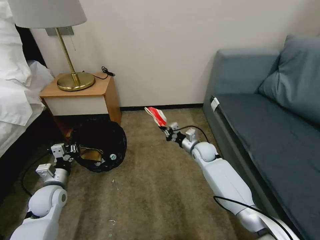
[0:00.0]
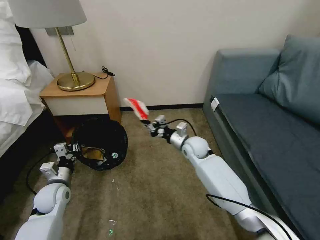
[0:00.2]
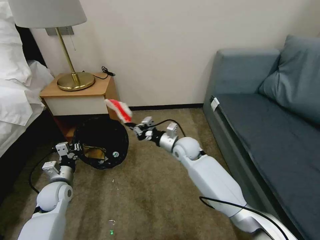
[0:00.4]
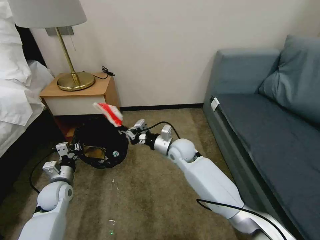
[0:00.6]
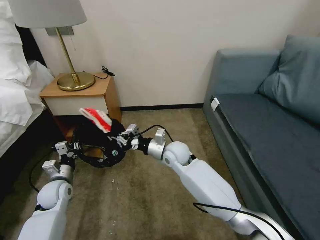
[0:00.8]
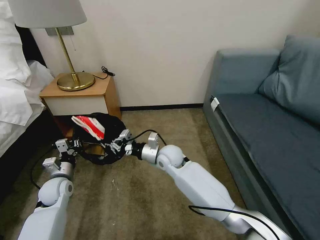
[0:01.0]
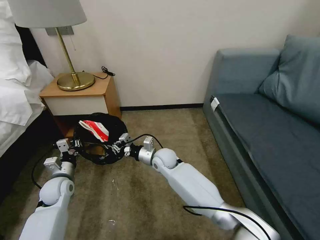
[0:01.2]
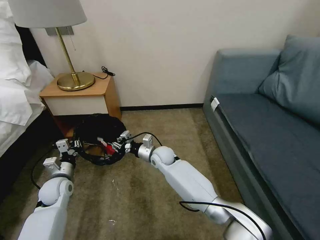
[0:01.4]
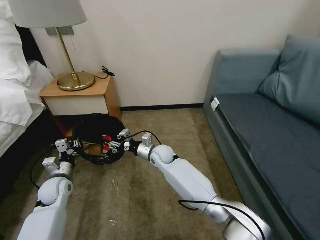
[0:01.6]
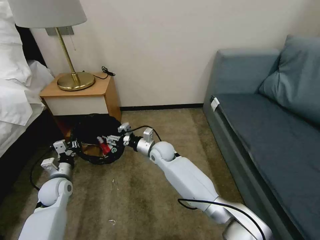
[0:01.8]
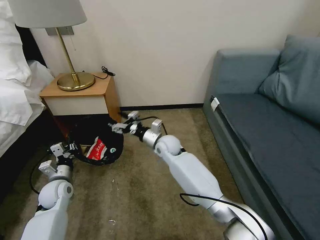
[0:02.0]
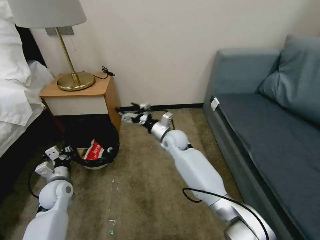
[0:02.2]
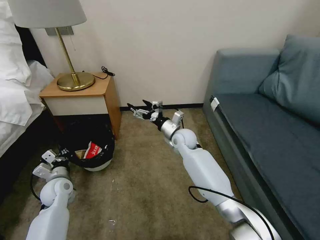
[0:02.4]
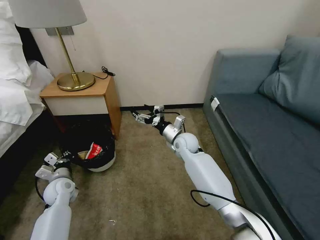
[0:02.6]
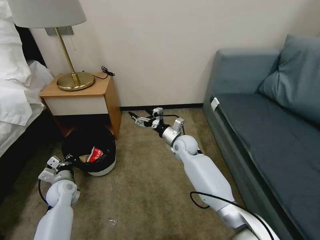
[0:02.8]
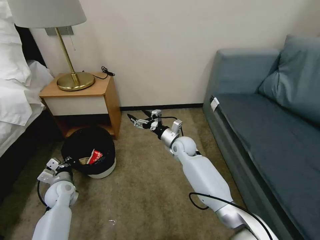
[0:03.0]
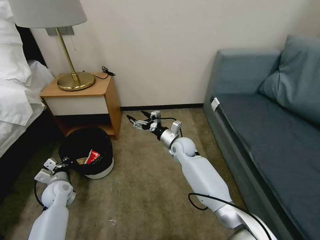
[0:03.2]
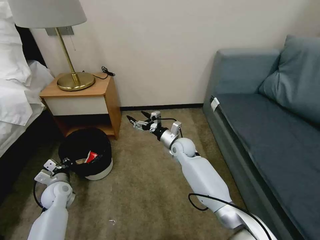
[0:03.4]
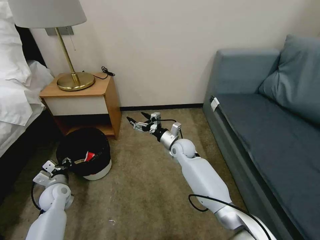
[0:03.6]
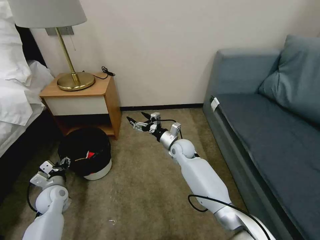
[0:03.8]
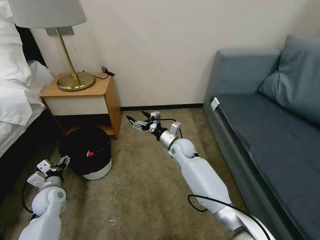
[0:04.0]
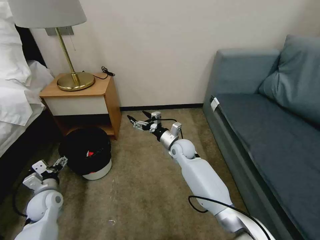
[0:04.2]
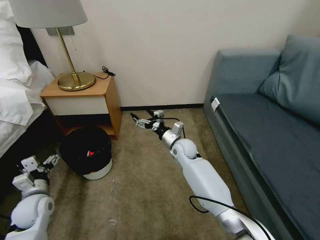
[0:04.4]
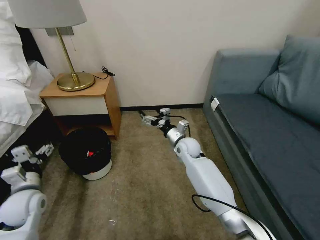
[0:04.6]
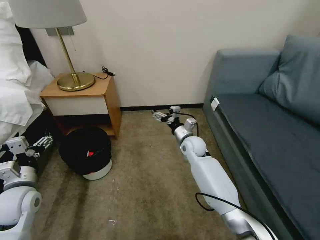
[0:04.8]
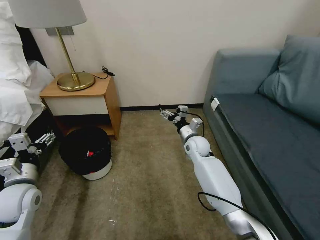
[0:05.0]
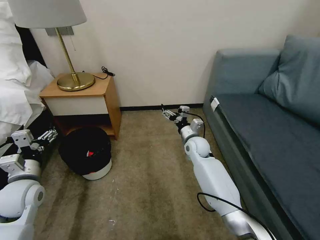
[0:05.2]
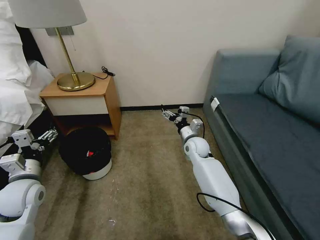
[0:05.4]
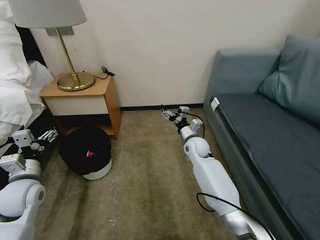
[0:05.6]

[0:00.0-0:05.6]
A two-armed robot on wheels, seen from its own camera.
Task of the whole recording: Pick up the trash bin, then pick up the garbage on the floor and place it into the trash bin.
0.0 to 1.4 s: The right gripper shifts roughly 20 cm to the left.
1.4 to 2.8 s: The right gripper goes about 10 cm to the right, and opens.
2.8 to 4.2 s: The left gripper shifts by some 5 cm, and opens its fingers.
4.2 to 5.6 s: The right gripper shifts roughly 5 cm to the right. Meanwhile the left gripper is displaced upward by approximately 15 cm.

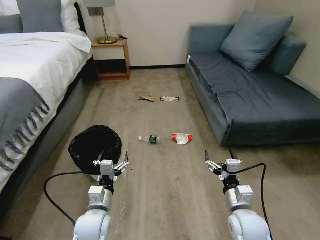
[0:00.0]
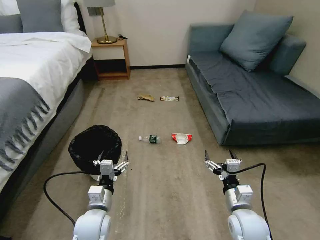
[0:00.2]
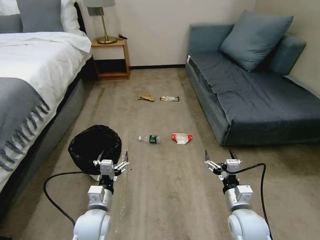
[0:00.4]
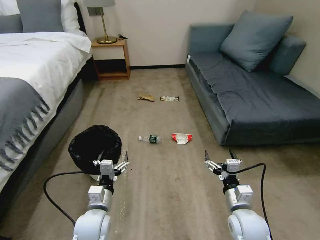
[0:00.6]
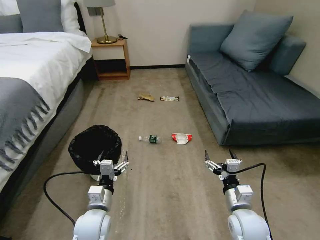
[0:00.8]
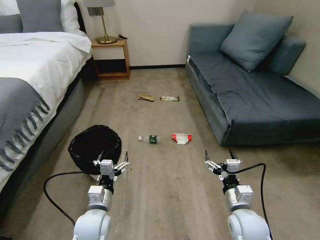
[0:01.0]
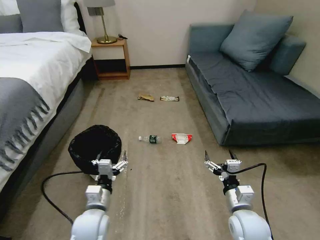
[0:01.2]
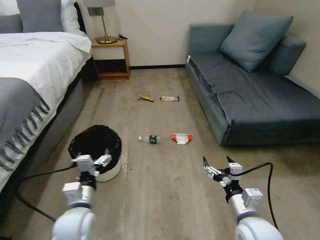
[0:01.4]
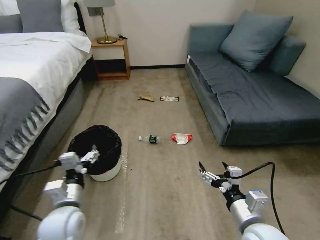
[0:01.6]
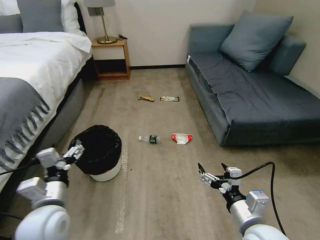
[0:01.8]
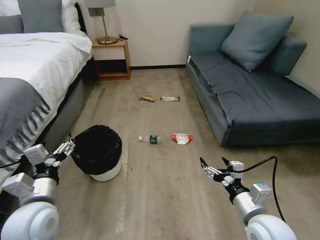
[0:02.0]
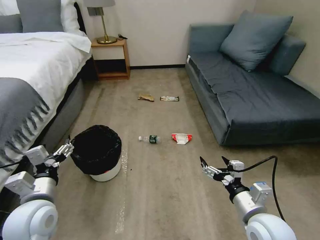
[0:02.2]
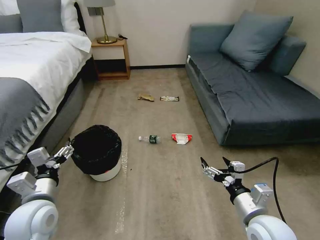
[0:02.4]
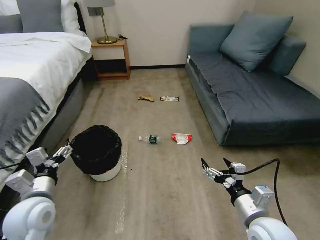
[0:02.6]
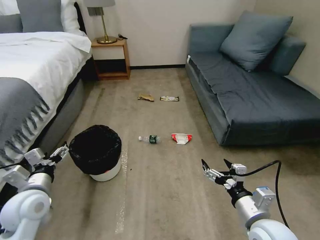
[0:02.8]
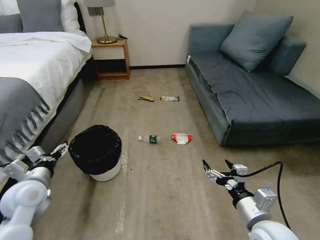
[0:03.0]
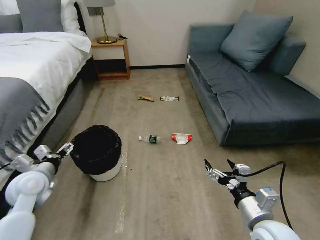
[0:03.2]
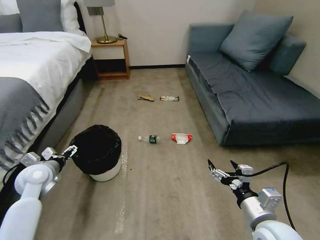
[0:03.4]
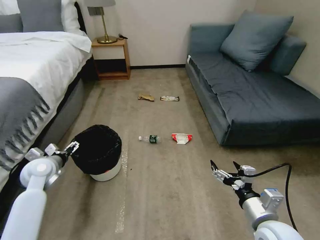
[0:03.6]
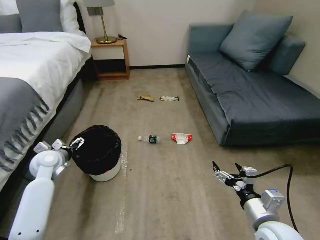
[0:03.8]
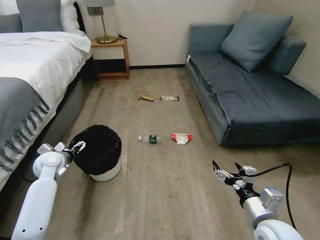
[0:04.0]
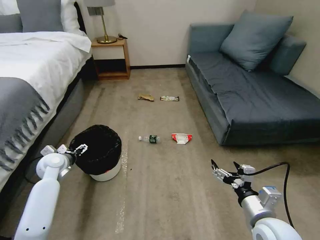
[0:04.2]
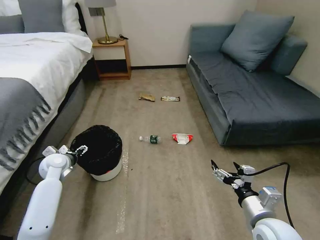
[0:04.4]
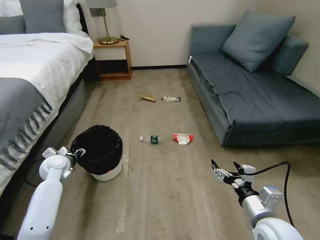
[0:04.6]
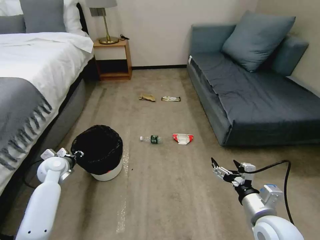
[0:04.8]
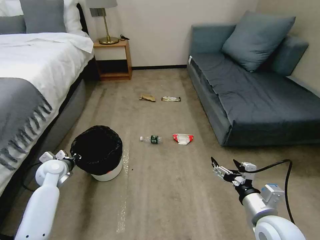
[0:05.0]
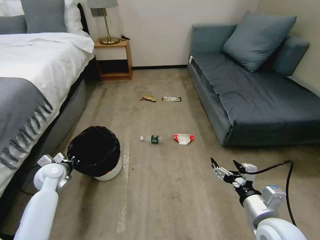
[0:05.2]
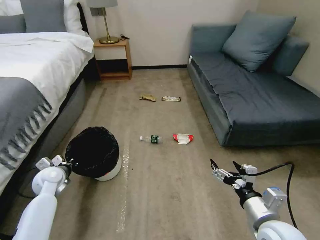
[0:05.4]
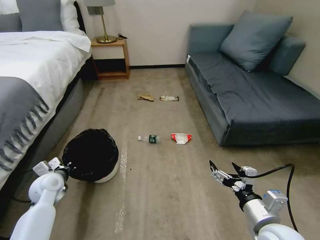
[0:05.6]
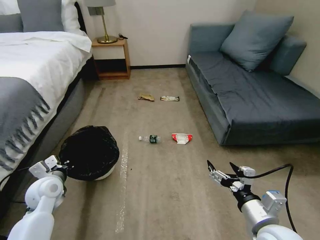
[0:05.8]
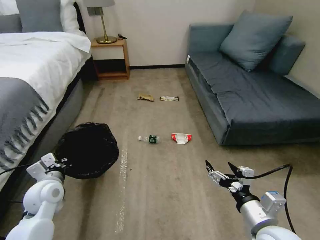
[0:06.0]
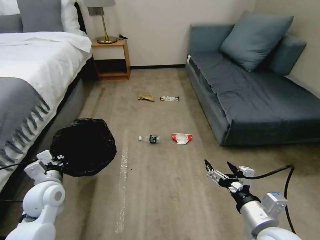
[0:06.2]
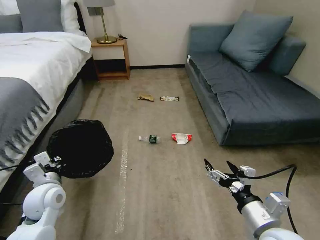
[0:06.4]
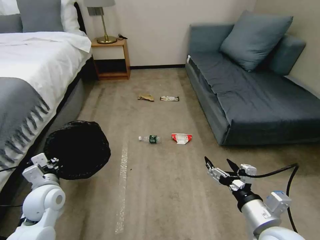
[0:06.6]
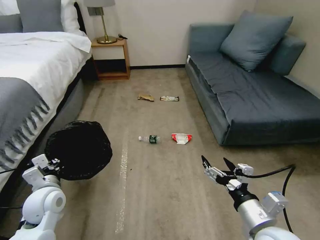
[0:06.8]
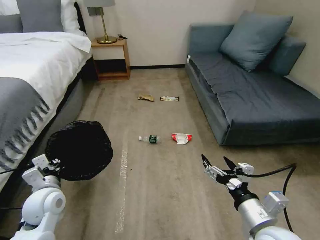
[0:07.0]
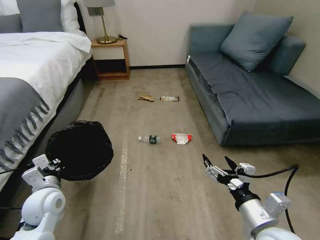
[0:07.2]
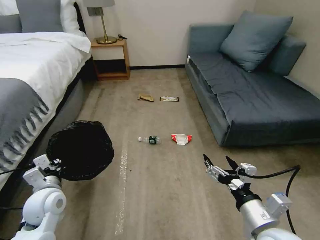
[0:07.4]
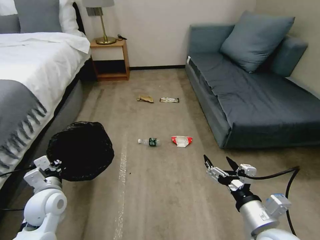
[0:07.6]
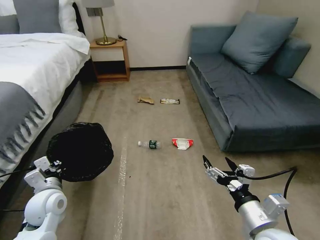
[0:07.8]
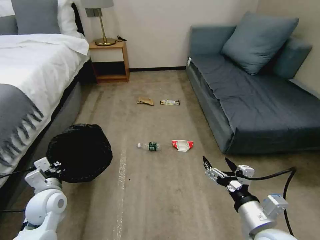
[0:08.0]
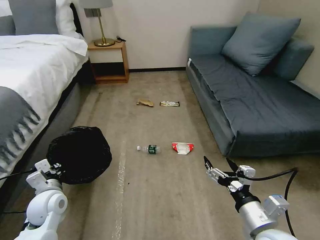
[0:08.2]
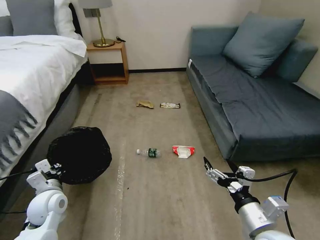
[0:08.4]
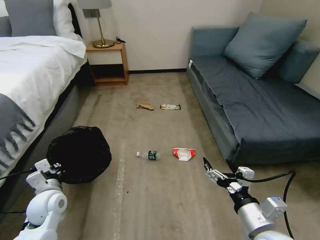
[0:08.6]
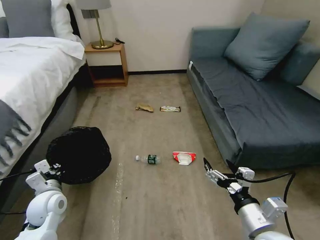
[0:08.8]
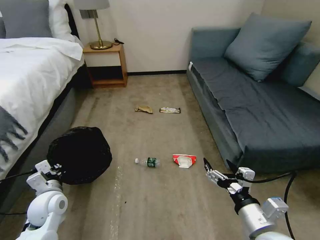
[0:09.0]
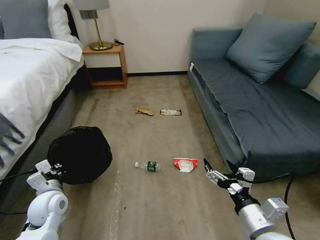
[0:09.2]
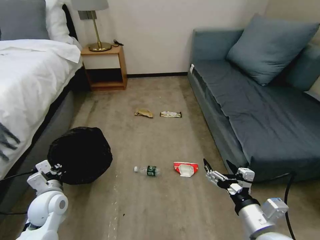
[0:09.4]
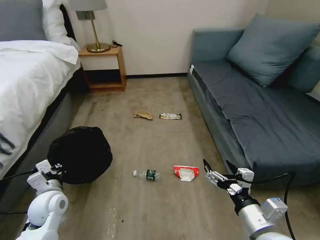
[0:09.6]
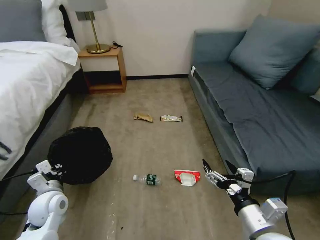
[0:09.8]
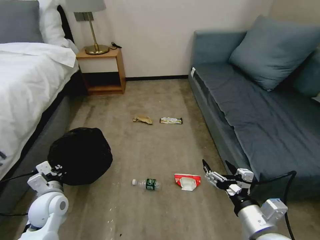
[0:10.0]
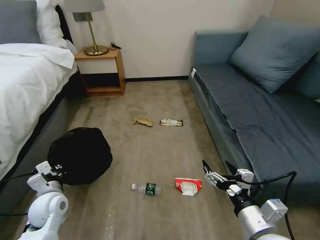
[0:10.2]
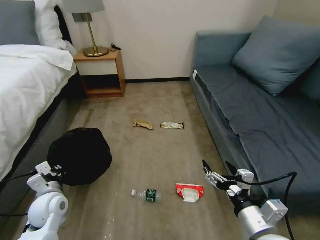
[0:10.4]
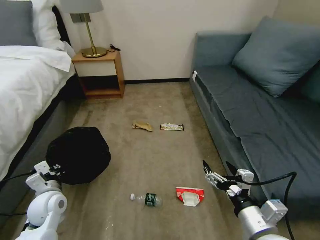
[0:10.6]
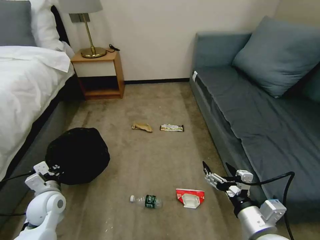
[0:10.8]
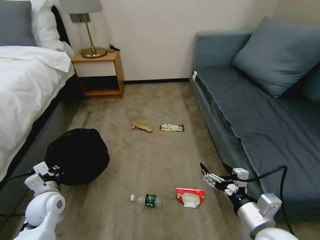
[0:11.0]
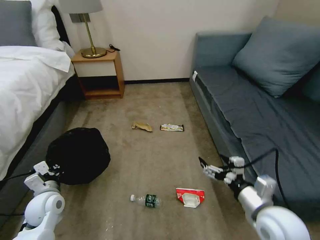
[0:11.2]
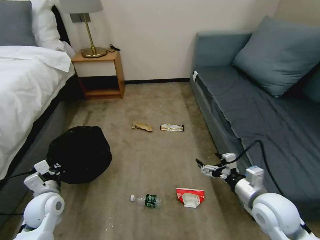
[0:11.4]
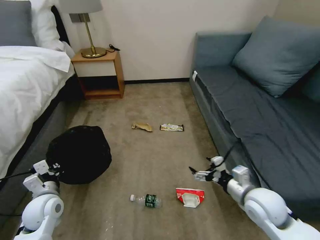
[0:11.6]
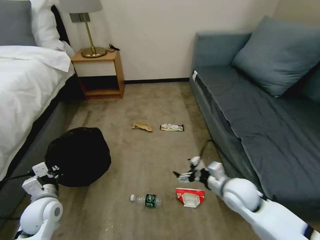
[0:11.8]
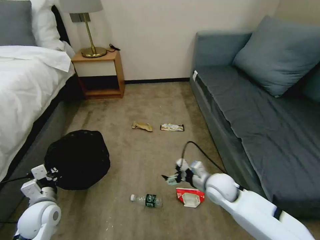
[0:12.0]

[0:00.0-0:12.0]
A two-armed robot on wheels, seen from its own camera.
Task of the whole recording: Pick up the trash bin, then pick up the garbage on the floor and place it into the trash bin.
1.6 to 3.0 s: The left gripper travels to the left by about 10 cm.
3.0 to 4.4 s: The left gripper travels forward and downward by some 15 cm.
4.4 to 6.0 s: The left gripper goes roughly 10 cm backward, and closes its fingers.
6.0 to 7.6 s: The grippers stay close to where they were, moving slightly.
10.4 to 12.0 s: The right gripper heads forward and downward, covering some 20 cm.

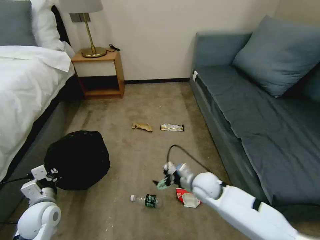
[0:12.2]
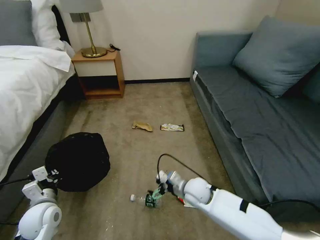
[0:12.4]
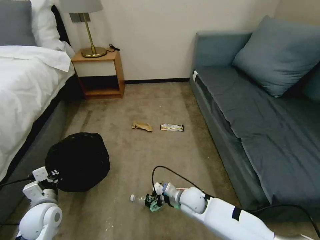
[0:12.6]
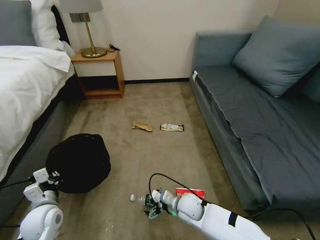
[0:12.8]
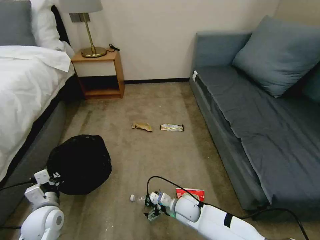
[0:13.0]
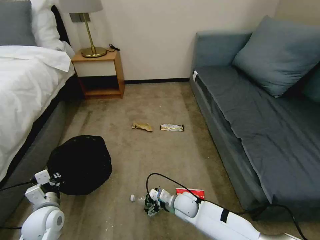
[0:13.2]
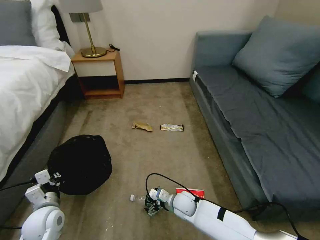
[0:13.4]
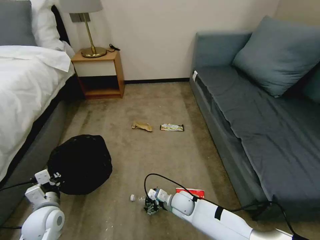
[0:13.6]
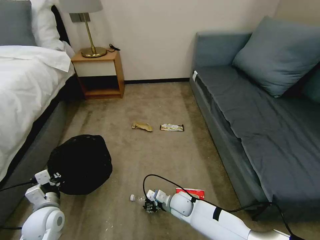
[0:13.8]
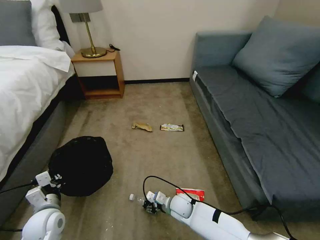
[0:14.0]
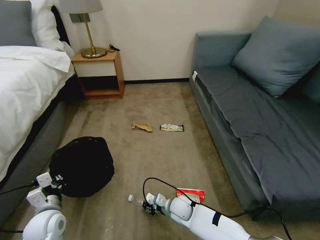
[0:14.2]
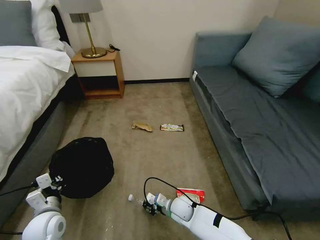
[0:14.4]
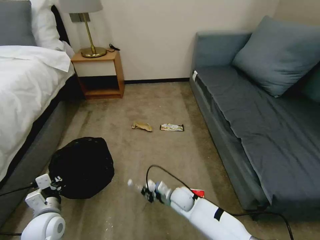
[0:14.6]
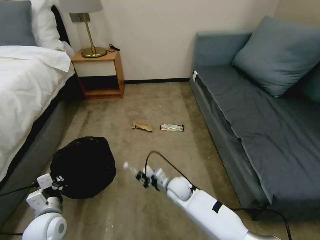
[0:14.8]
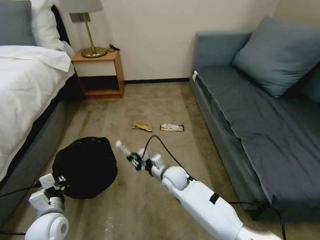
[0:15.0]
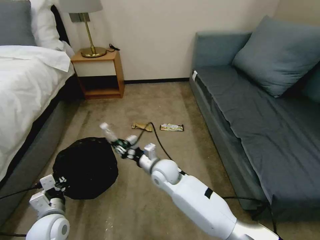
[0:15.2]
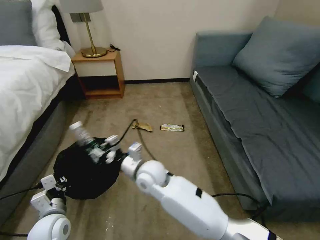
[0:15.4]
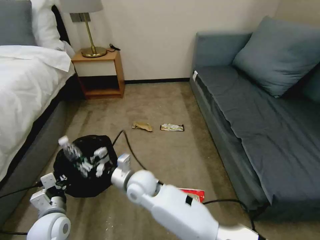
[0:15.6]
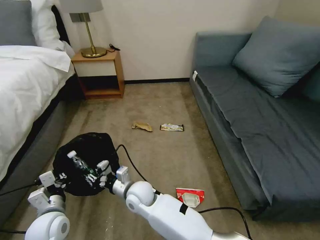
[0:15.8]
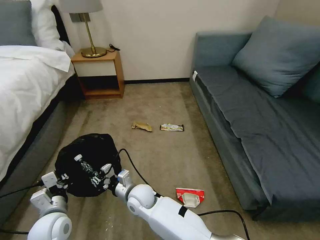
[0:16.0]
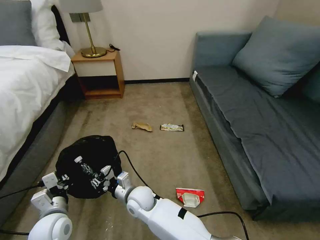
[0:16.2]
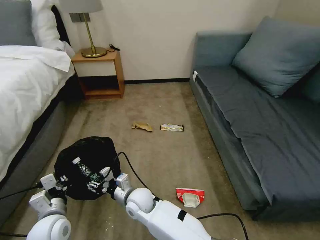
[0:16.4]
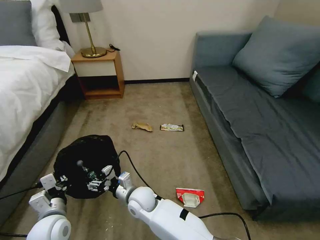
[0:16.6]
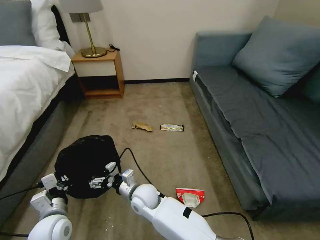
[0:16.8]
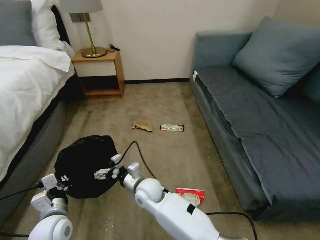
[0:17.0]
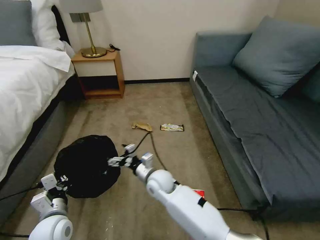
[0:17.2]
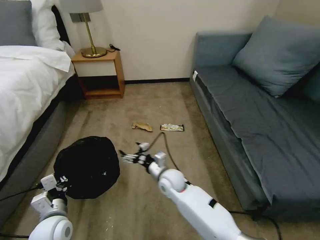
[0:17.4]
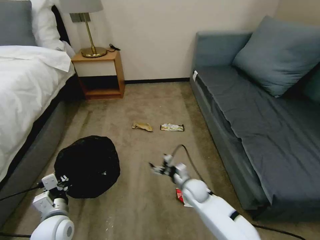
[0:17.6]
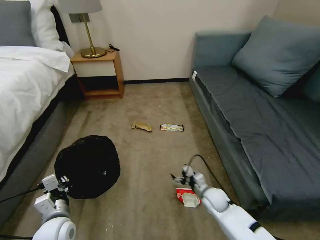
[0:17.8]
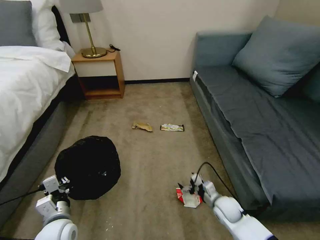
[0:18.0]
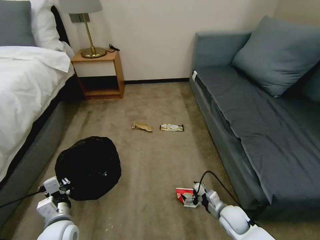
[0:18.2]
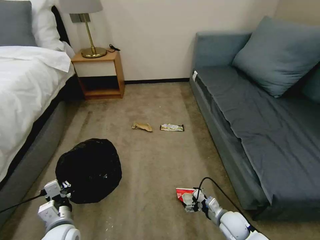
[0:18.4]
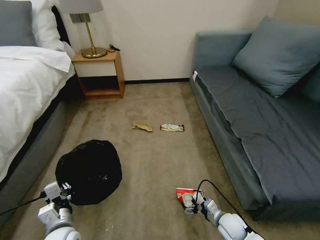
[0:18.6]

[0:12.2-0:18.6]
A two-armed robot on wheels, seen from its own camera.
Task of the whole recording: Pick up the trash bin, then pick up the garbage on the floor and place it into the trash bin.
12.2 to 13.8 s: The right gripper is displaced downward and to the left by some 15 cm.
13.8 to 15.4 s: The right gripper is displaced upward and to the left by roughly 25 cm, and closes its fingers.
15.4 to 17.0 s: The right gripper is displaced downward by roughly 10 cm, and opens.
17.0 to 18.6 s: The right gripper shifts about 35 cm to the right and downward.
